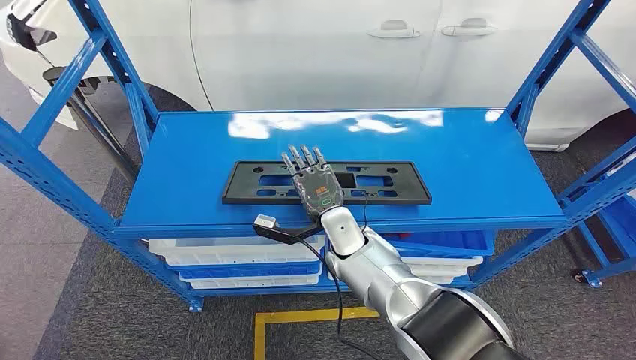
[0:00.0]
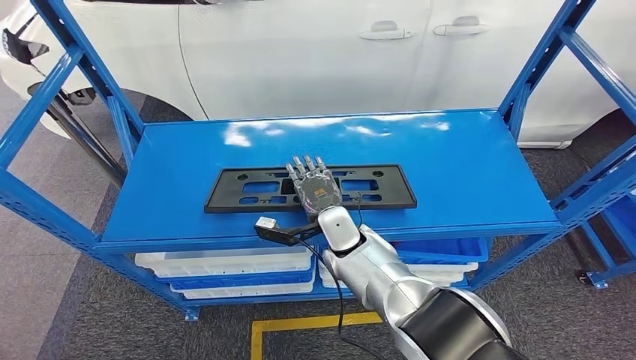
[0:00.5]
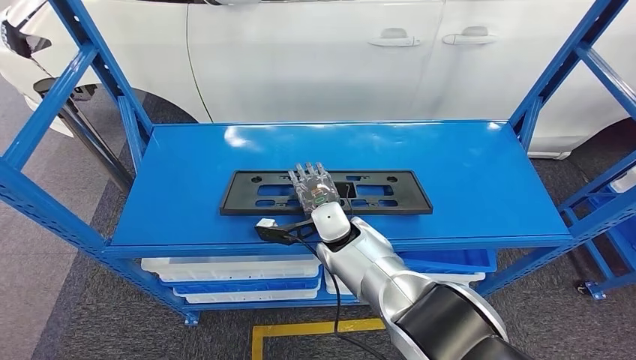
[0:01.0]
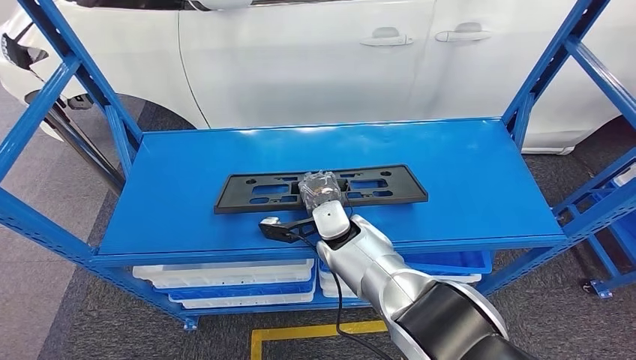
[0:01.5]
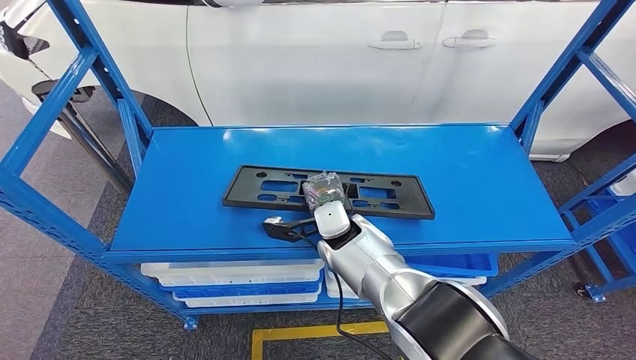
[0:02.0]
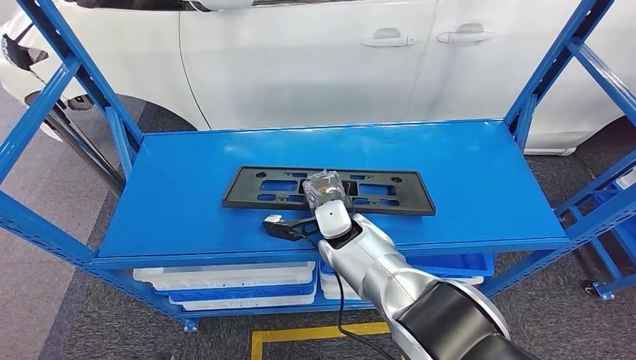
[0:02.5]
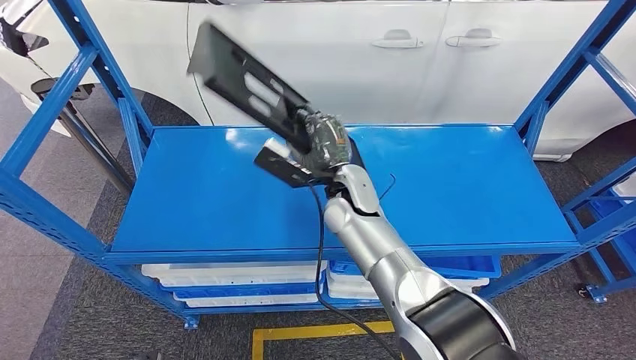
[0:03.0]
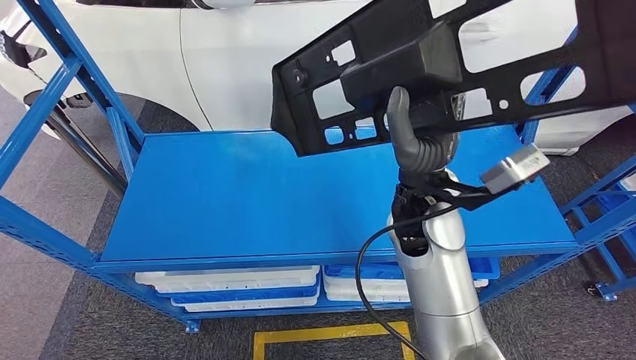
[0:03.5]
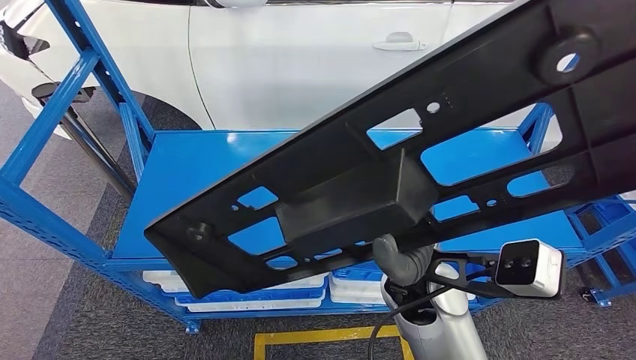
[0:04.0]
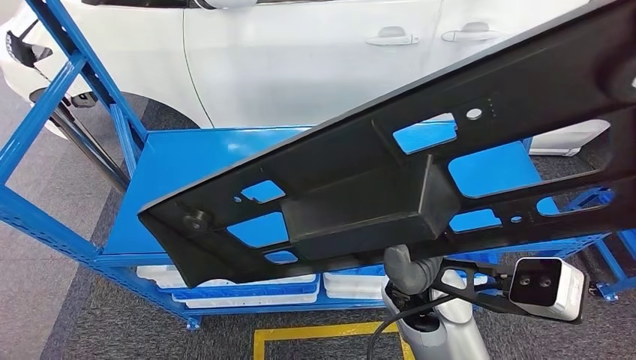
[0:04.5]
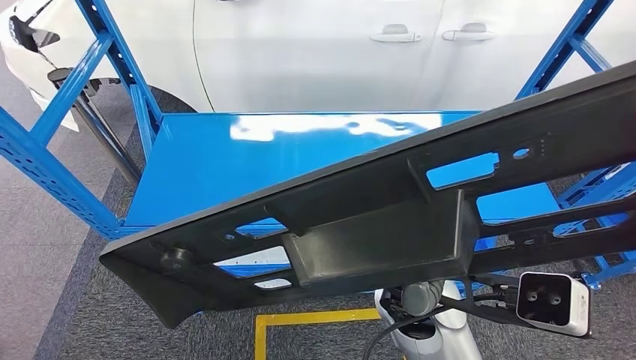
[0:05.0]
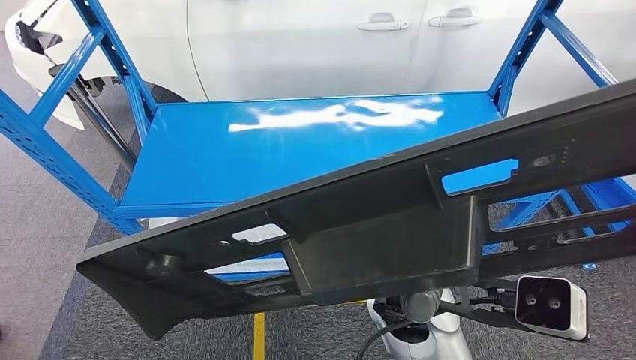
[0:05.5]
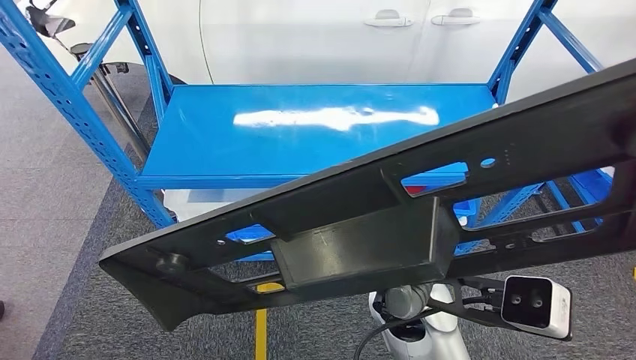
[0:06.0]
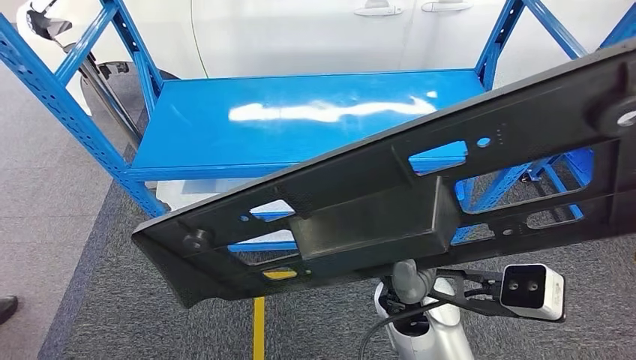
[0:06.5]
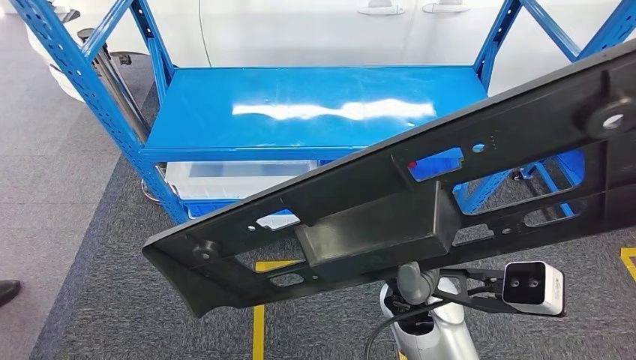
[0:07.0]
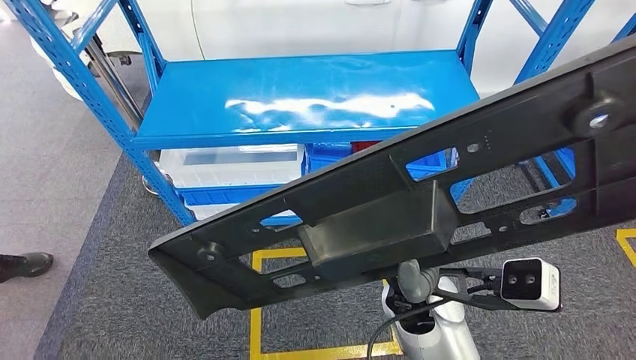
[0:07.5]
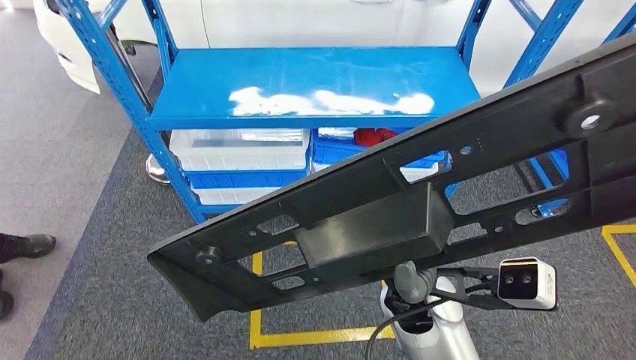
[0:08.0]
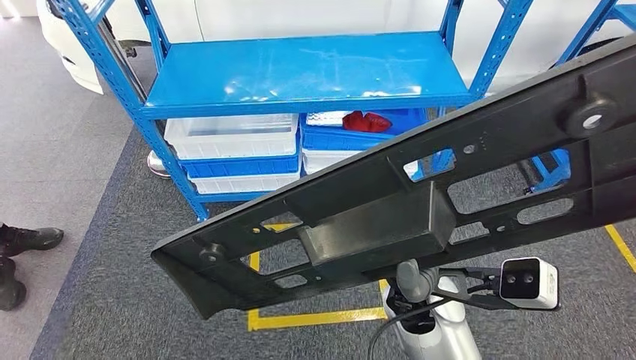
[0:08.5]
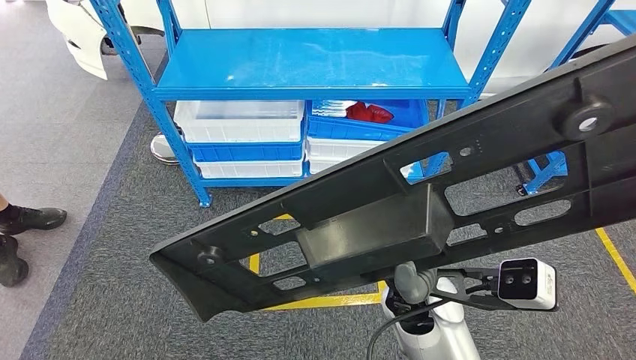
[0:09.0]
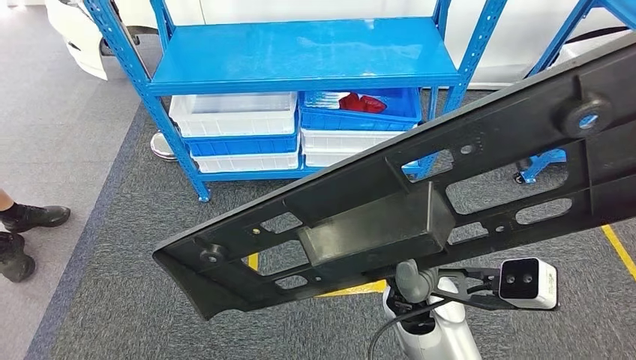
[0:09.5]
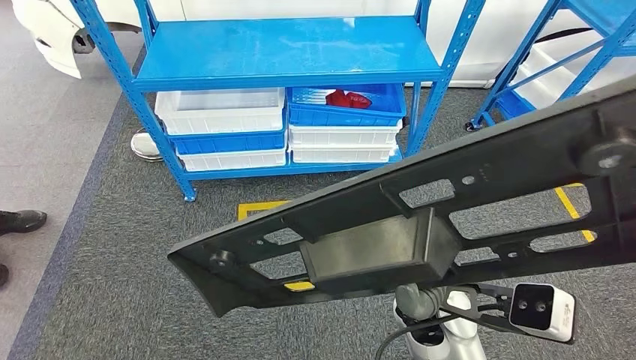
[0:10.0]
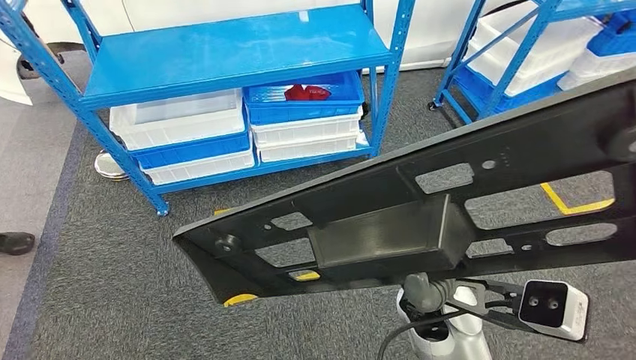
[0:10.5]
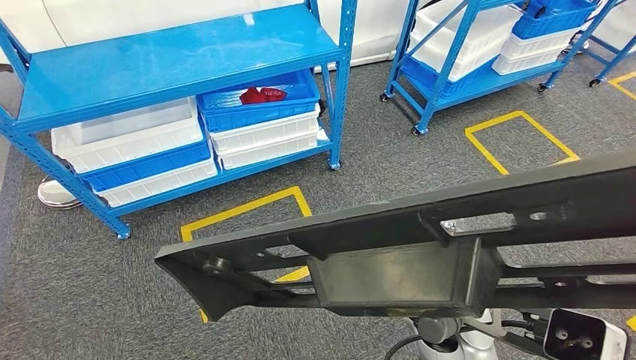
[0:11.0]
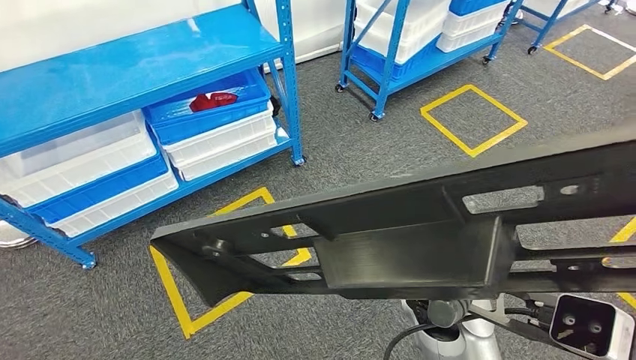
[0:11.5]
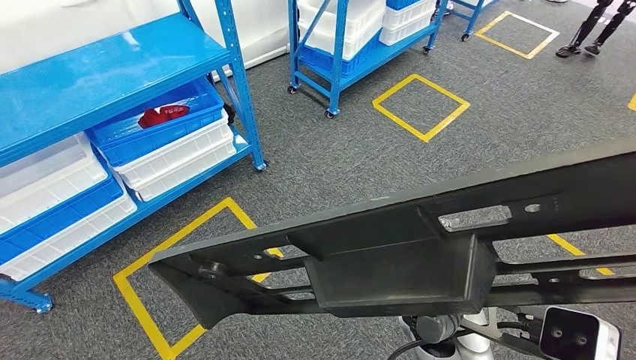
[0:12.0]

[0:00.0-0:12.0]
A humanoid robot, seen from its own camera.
Step, 0:00.0 to 0:04.5: Pick up the large parts from the shelf.

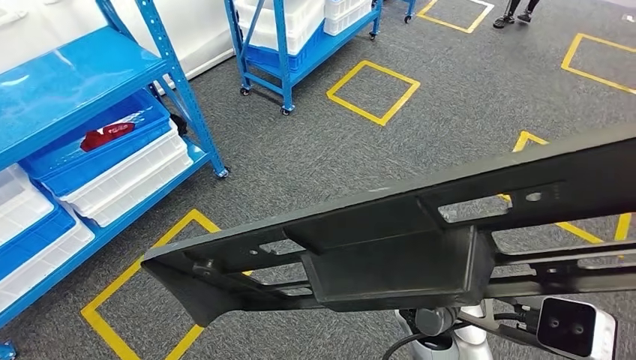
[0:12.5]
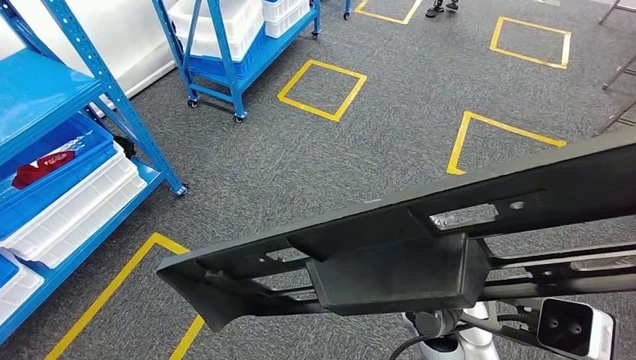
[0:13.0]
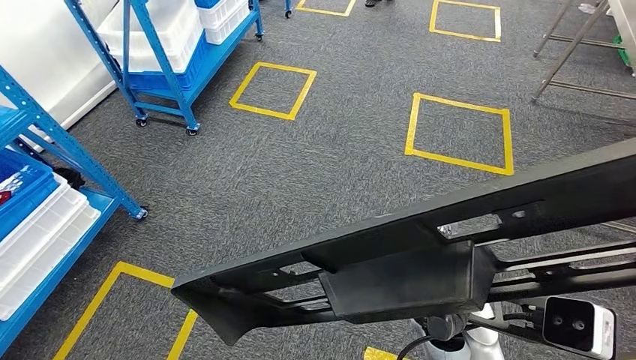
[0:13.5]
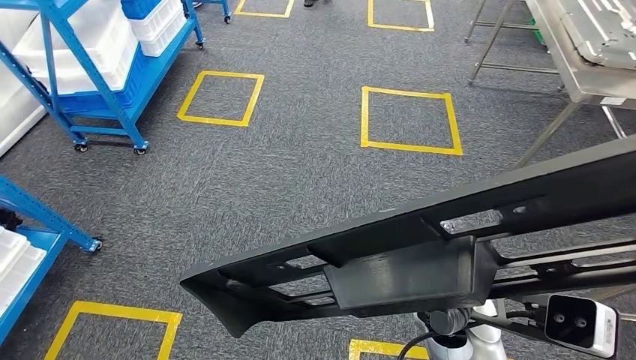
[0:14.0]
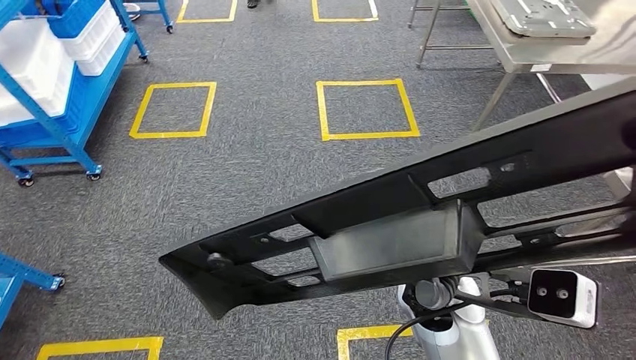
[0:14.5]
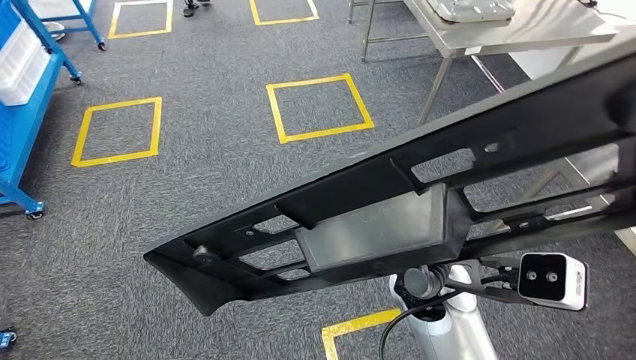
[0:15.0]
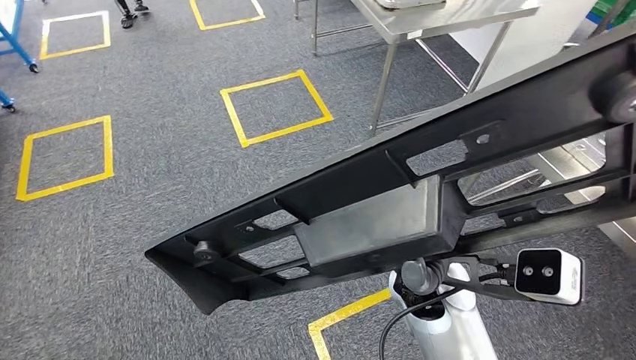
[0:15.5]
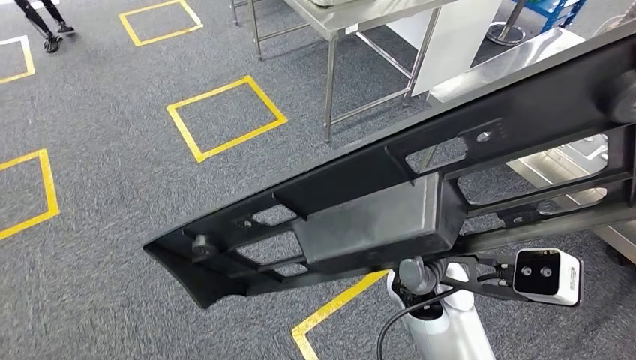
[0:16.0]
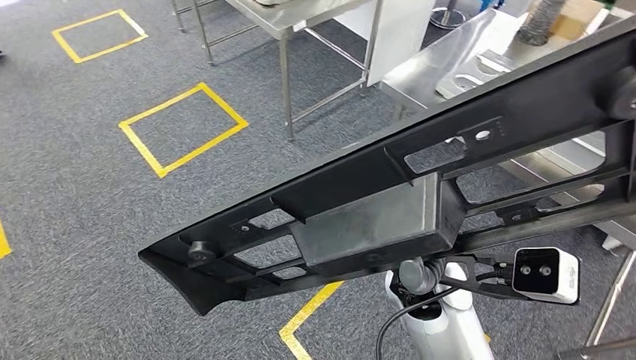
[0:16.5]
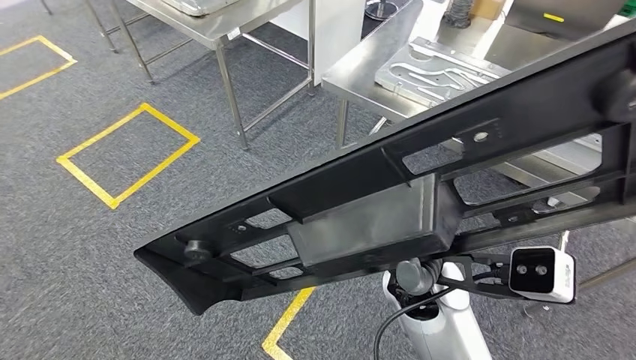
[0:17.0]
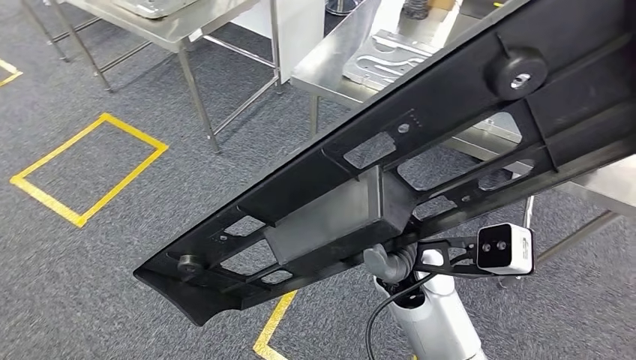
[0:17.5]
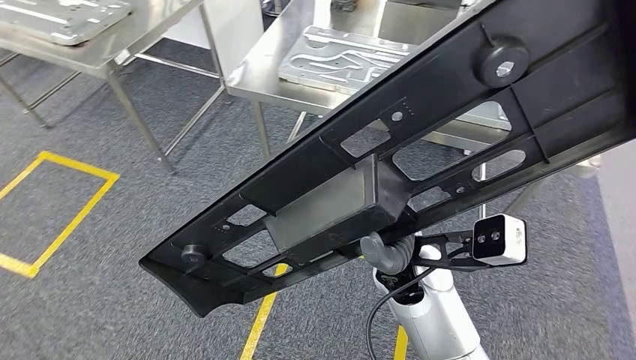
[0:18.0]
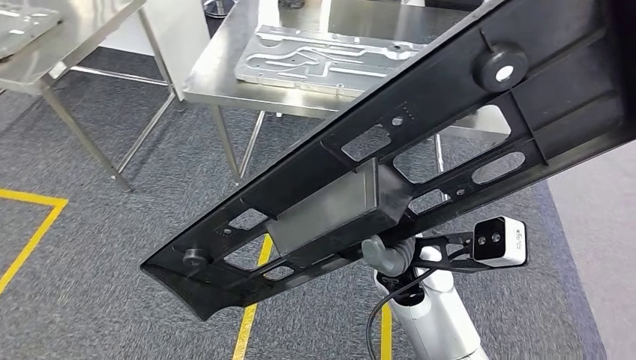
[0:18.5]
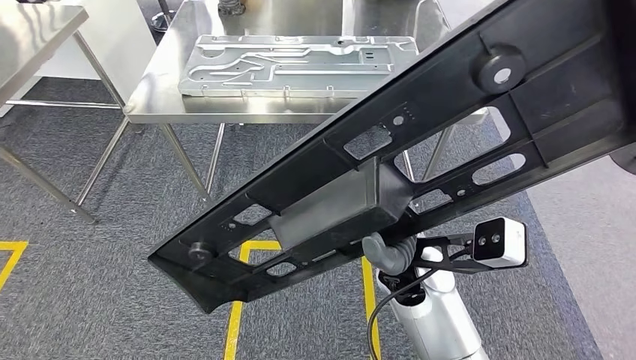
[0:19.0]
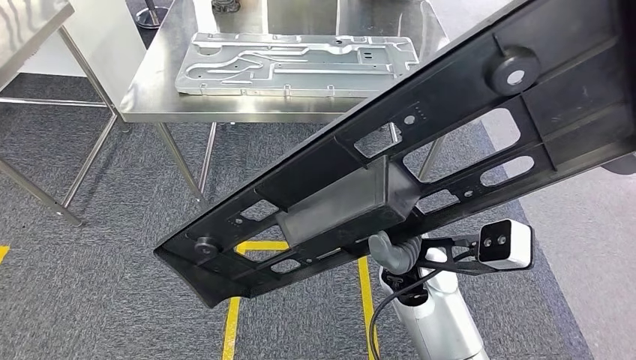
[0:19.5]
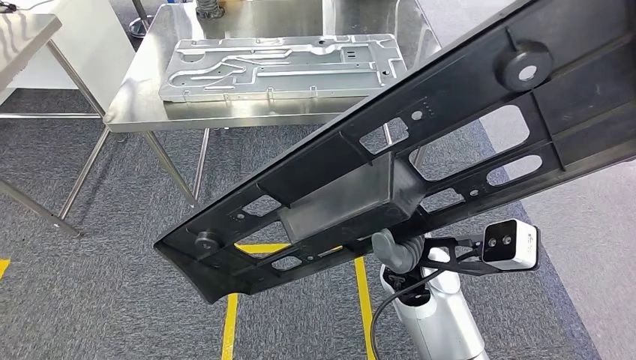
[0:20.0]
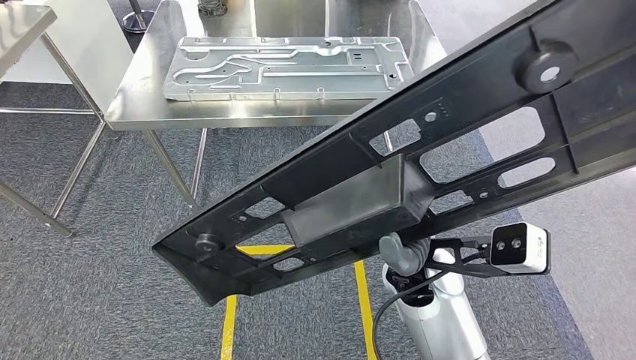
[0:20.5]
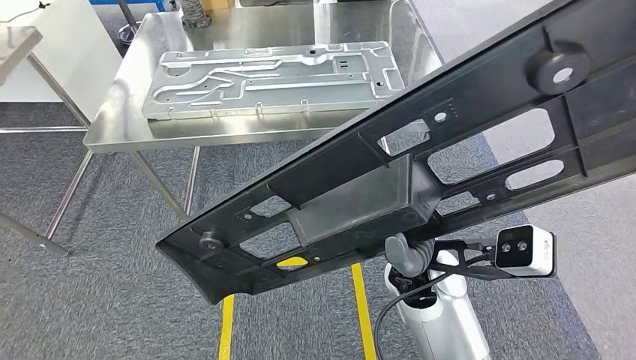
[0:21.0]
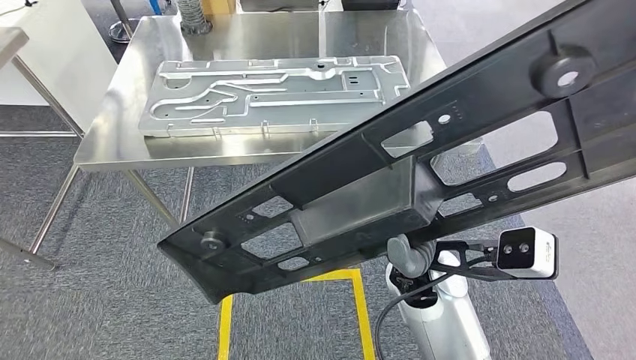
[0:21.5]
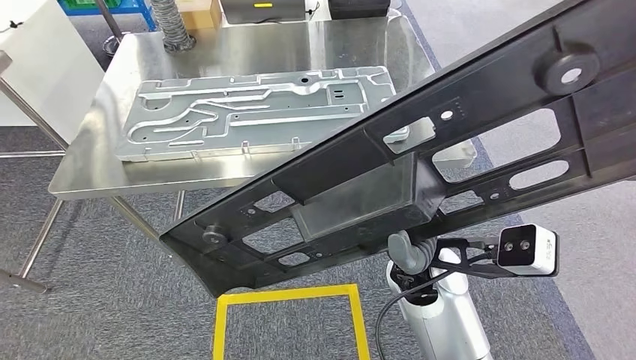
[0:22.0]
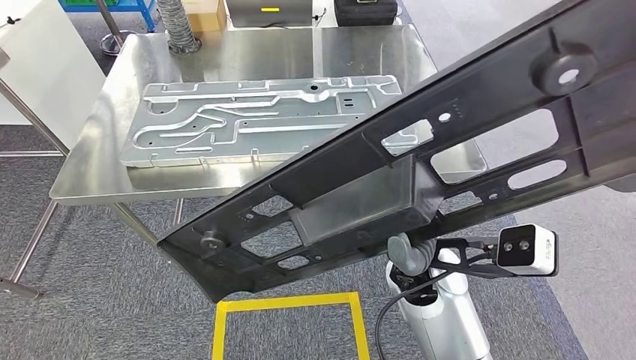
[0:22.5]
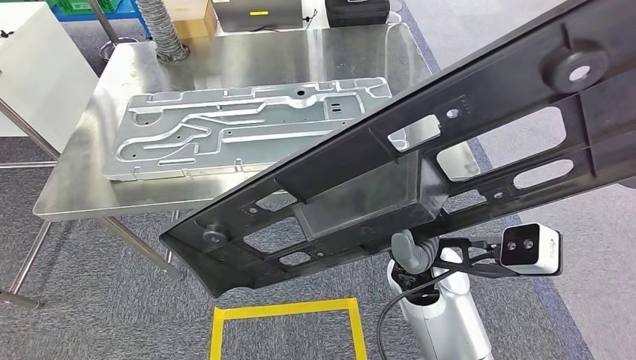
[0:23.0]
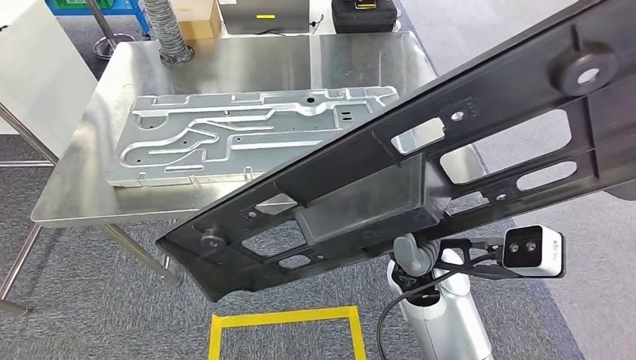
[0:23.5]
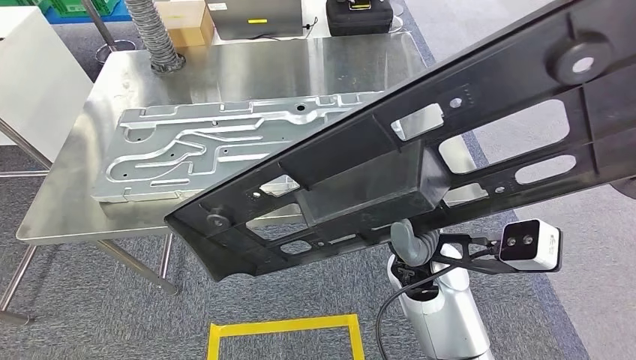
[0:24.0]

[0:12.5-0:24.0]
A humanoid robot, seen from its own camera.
Step, 0:12.5 to 0:23.0: Move the large parts to the workbench.
